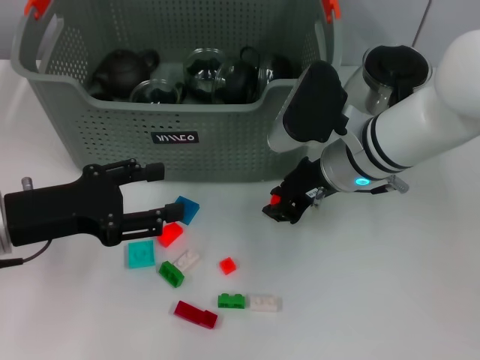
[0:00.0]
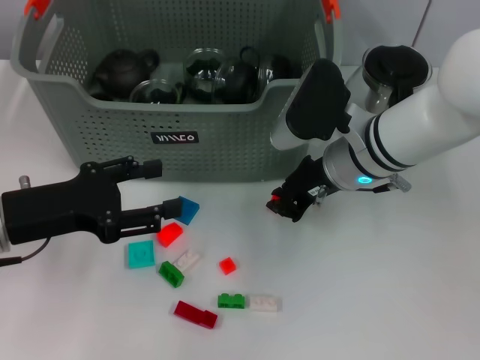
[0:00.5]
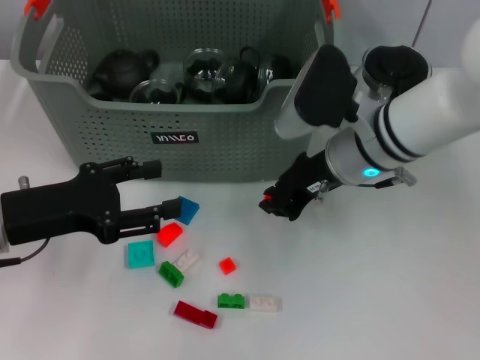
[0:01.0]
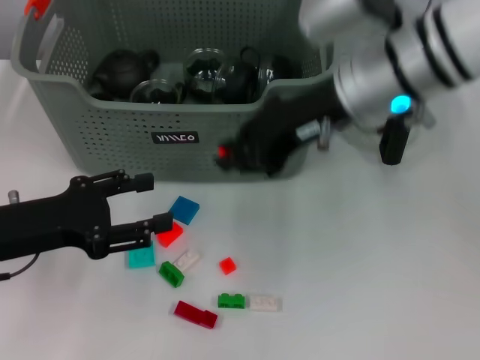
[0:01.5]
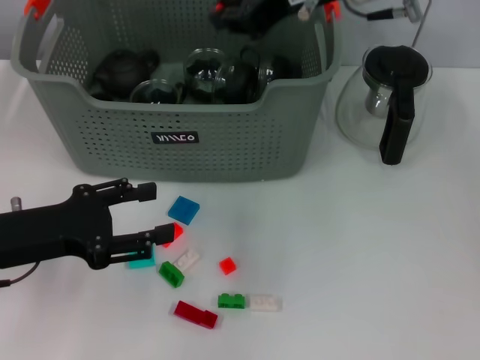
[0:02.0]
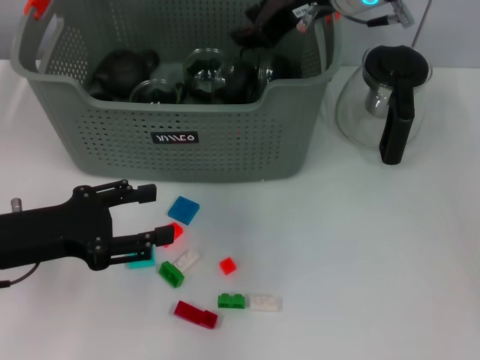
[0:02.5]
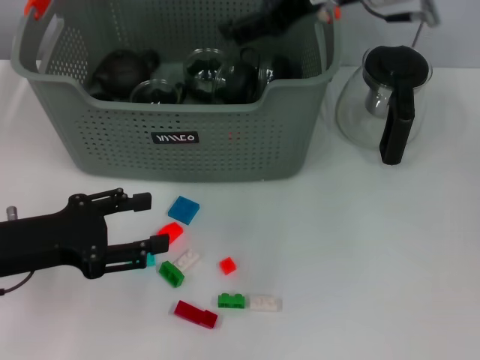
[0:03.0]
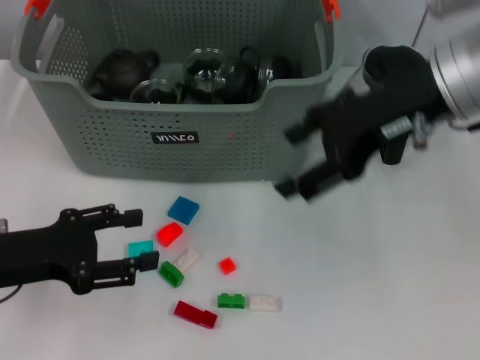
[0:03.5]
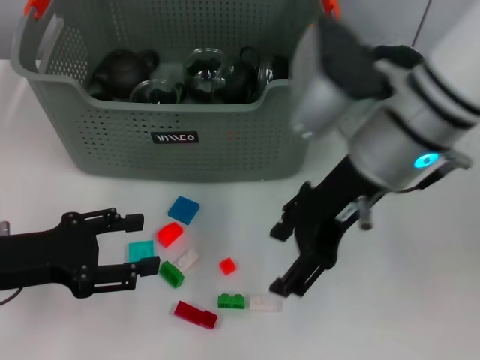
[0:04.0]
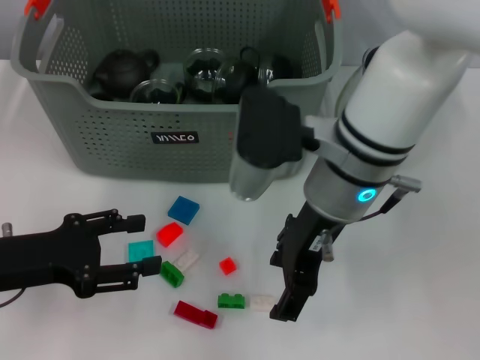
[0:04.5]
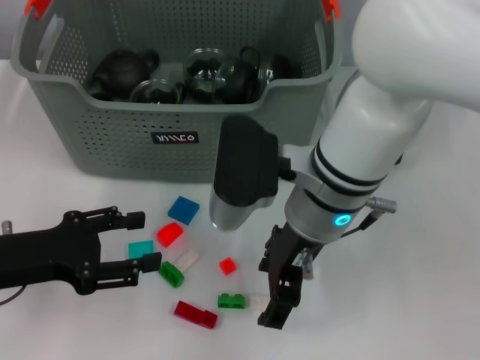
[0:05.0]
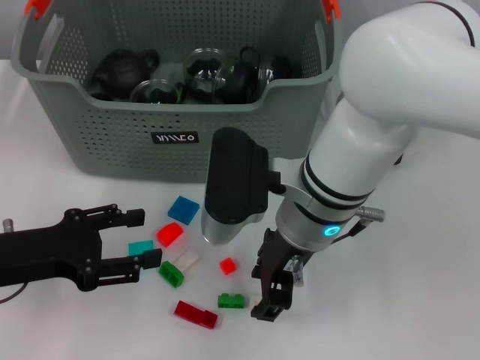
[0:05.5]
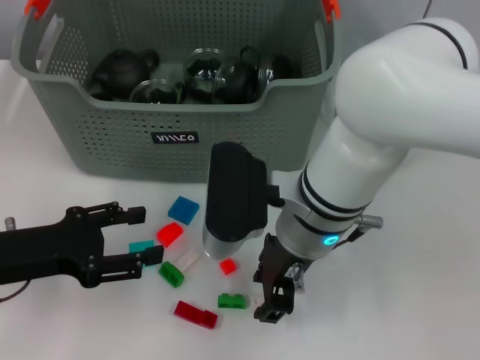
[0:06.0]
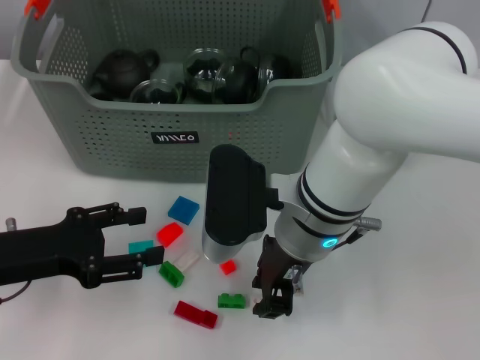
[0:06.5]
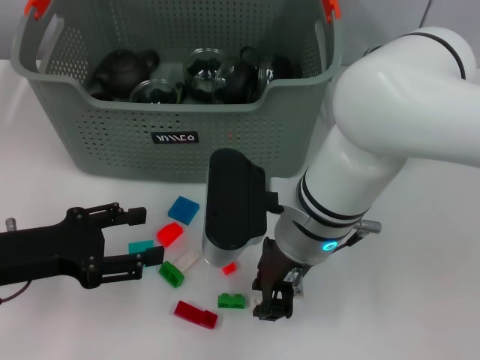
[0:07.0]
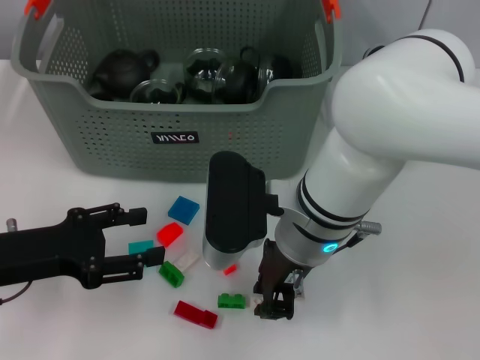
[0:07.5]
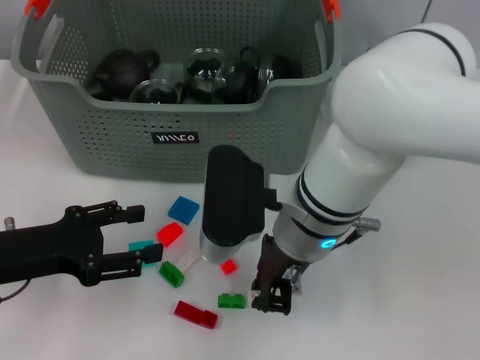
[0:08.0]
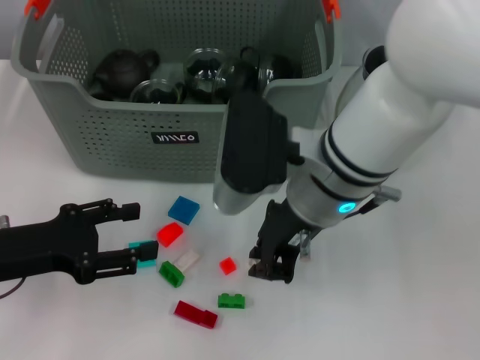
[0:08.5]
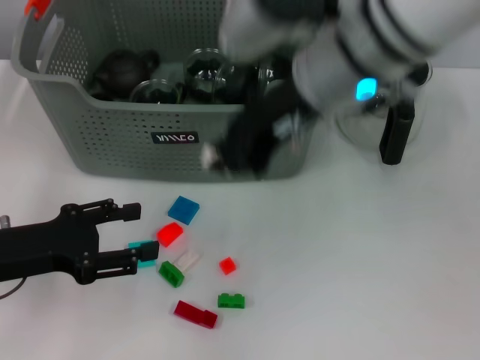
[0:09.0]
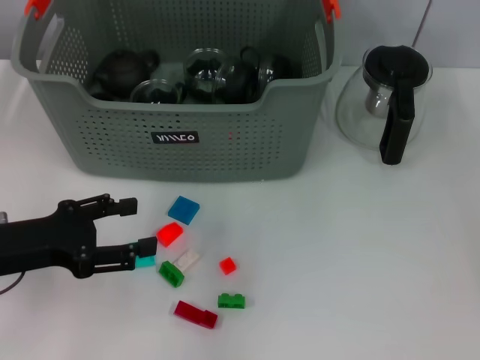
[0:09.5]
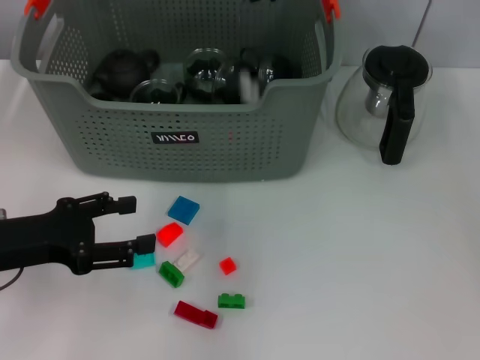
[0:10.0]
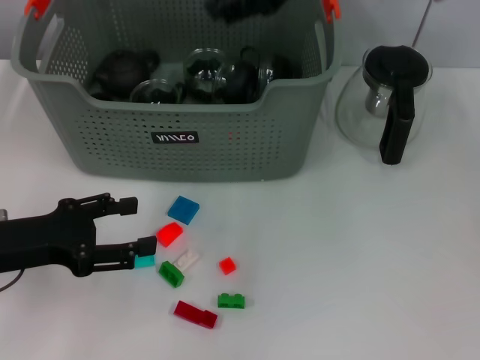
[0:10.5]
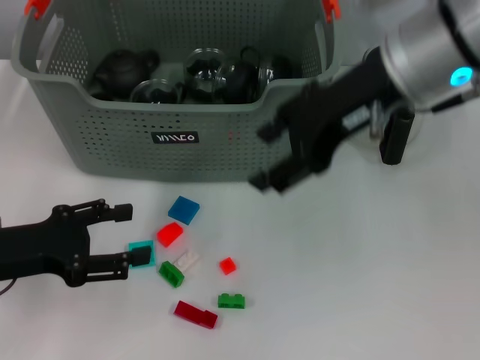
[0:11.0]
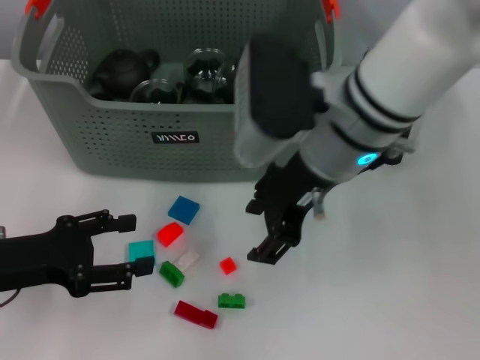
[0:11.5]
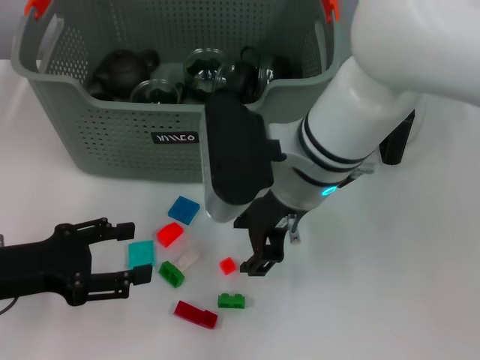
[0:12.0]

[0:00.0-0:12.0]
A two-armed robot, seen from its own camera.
Task of the whole recording: pick up the teacup on the table and place it into the storage bin, pick up the block on the table and place it into the storage bin.
Step, 0:01.0 to 0:02.0: Place the orange block in the storage box with right gripper.
Step, 0:03.0 to 0:07.5: Grasp the white block with right gripper.
Step, 0:08.0 to 0:10.0: Place the white block in the storage box with right gripper.
0:00.0 to 0:02.0: The right gripper heads upward, covering approximately 15 cm.
0:02.0 to 0:04.0: The right gripper shifts roughly 10 cm backward and downward, and opens up.
0:04.0 to 0:06.0: The right gripper heads downward and to the left, covering approximately 10 cm, and closes up.
0:06.0 to 0:08.0: The right gripper closes up.
0:08.0 to 0:10.0: The right gripper shifts some 20 cm upward, forward and to the right.
0:10.0 to 0:12.0: The right gripper travels downward, backward and to the left by approximately 20 cm, and opens.

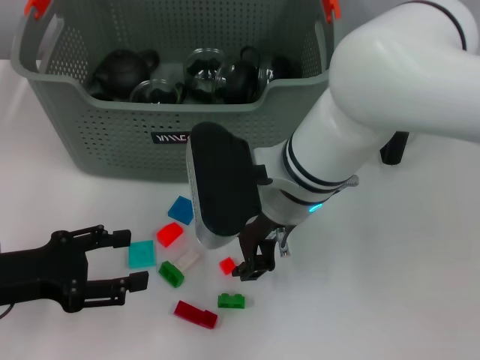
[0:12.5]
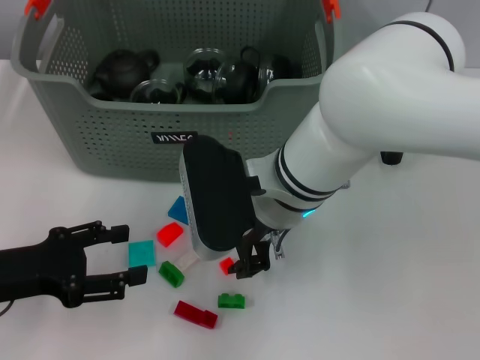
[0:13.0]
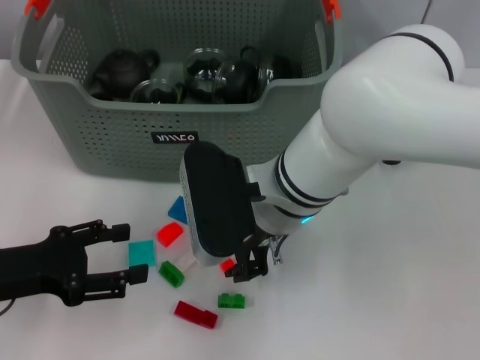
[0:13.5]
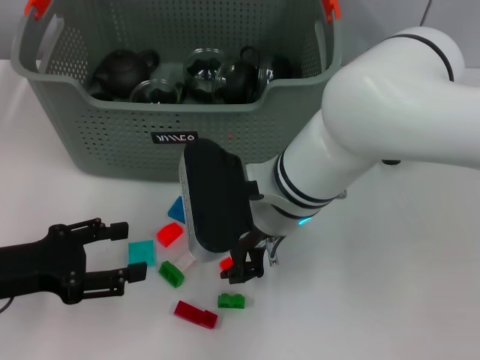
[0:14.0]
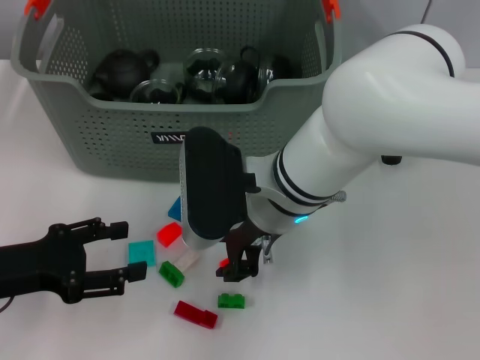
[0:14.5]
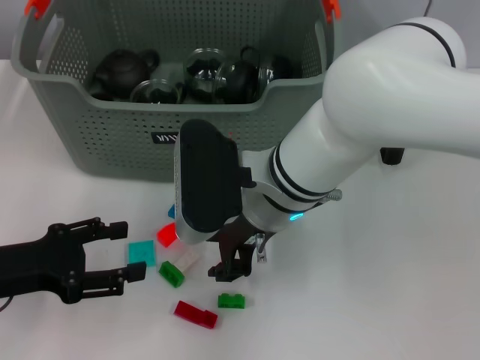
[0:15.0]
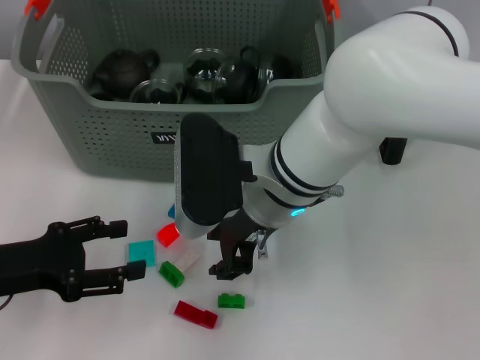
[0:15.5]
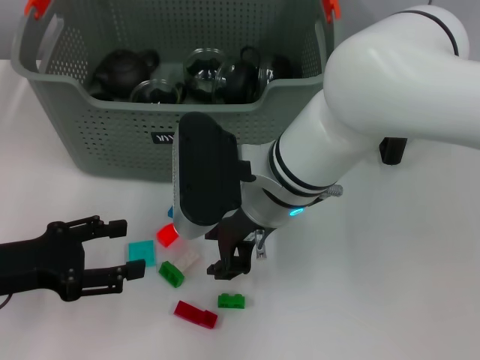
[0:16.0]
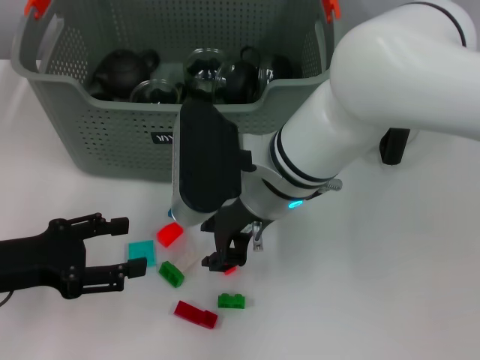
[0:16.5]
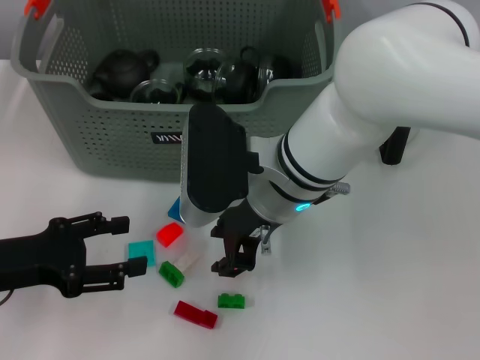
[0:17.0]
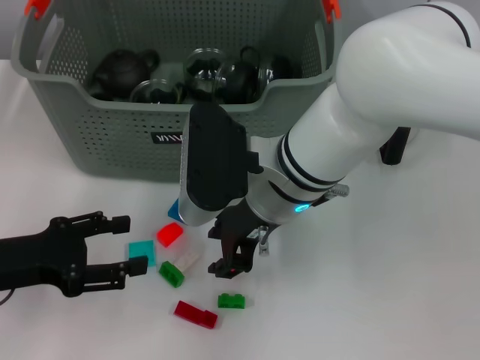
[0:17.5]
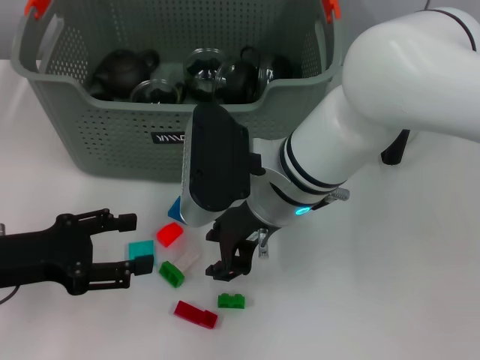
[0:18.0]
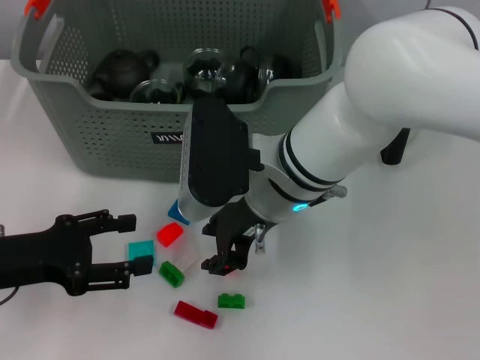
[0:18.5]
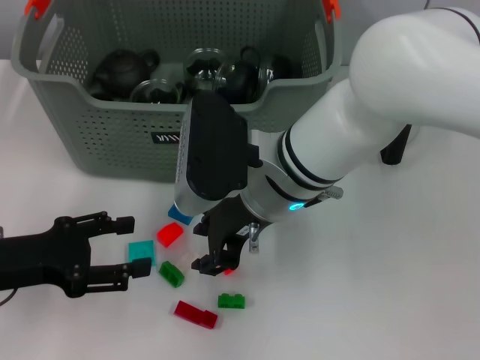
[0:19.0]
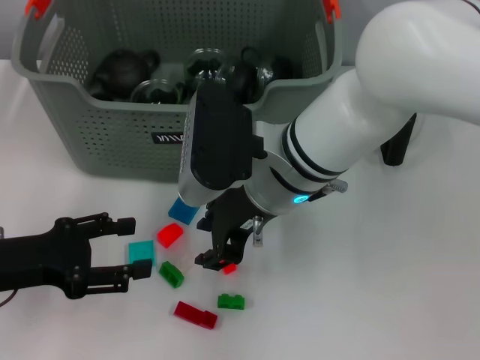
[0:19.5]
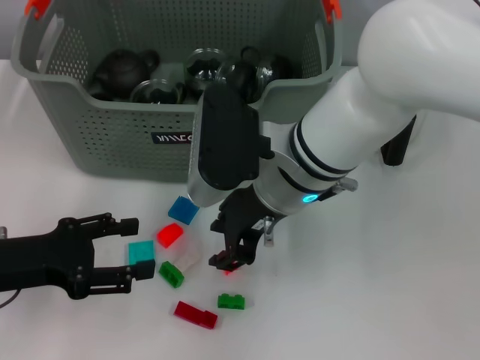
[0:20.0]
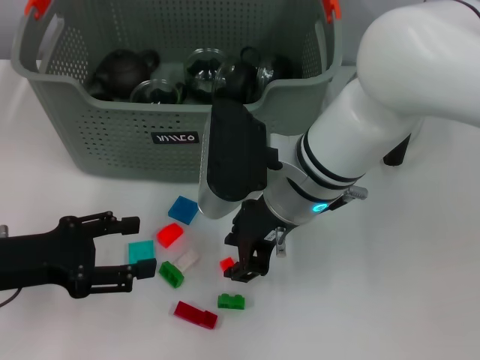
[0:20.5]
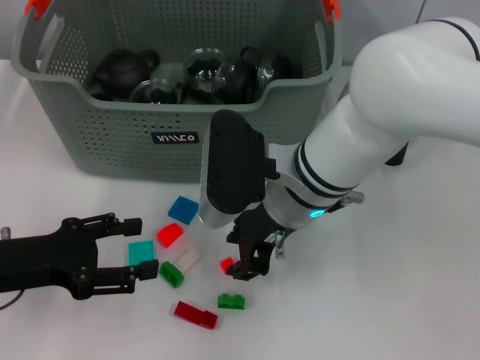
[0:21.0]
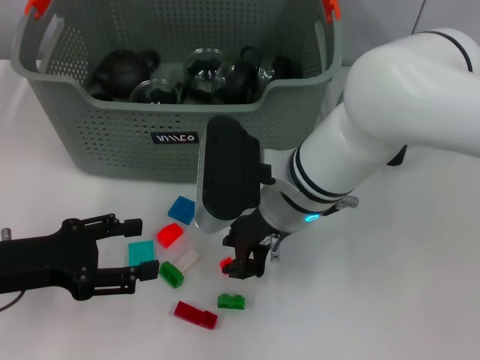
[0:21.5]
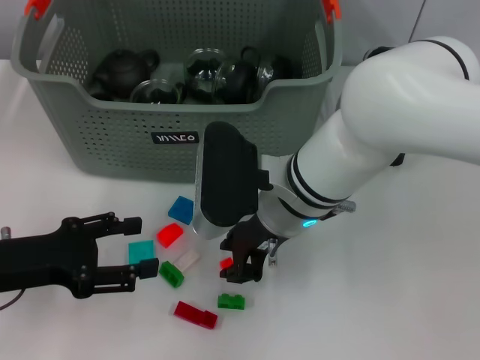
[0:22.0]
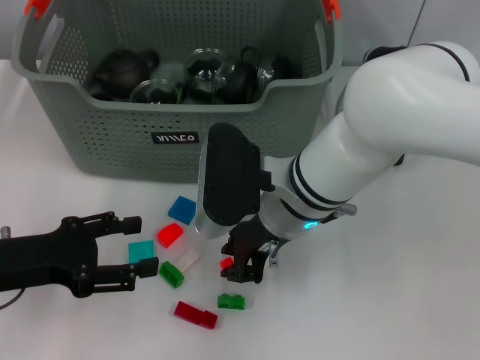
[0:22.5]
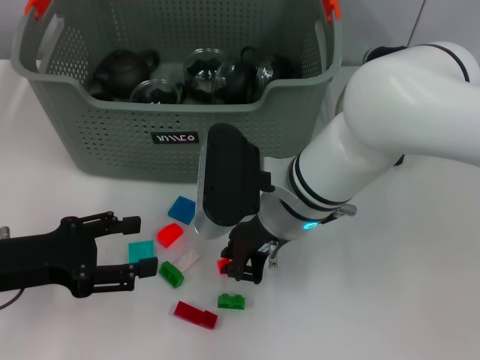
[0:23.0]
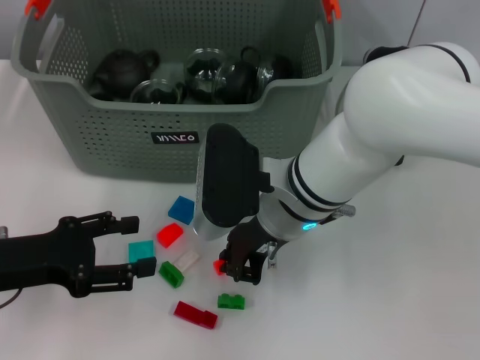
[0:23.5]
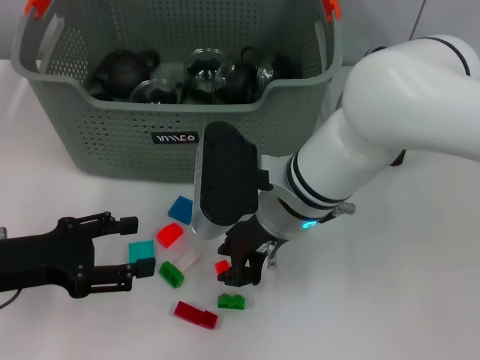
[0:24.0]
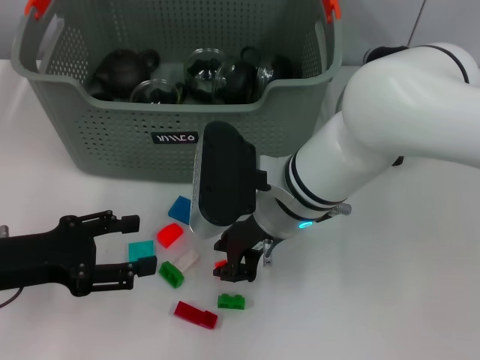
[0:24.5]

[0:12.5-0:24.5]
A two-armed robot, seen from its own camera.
Task of the whole recording: pick up the teacup on the table and place it into the storage bin, pick up the block on the table and place it into the storage bin.
0:12.5 to 0:16.5: The grippers move only a little.
0:16.5 to 0:18.5: Neither gripper changes place.
0:18.5 to 0:22.5: The grippers move only a little.
0:22.5 to 0:24.5: Both grippers stay put.

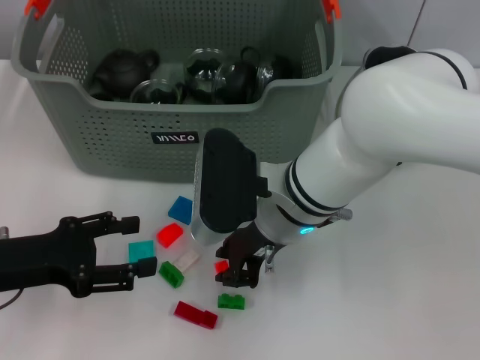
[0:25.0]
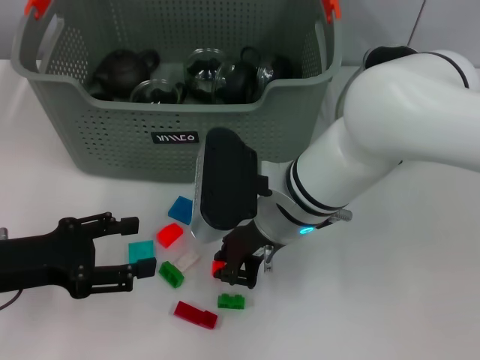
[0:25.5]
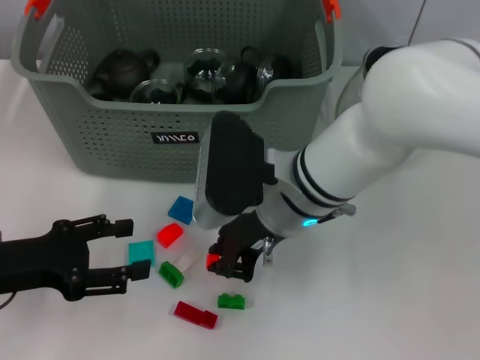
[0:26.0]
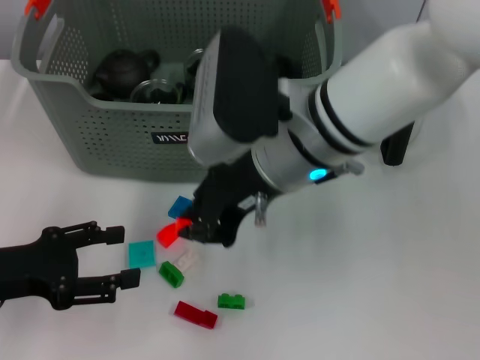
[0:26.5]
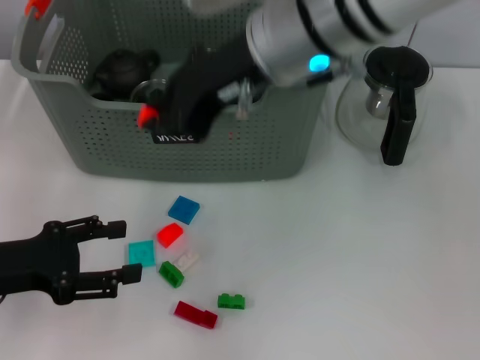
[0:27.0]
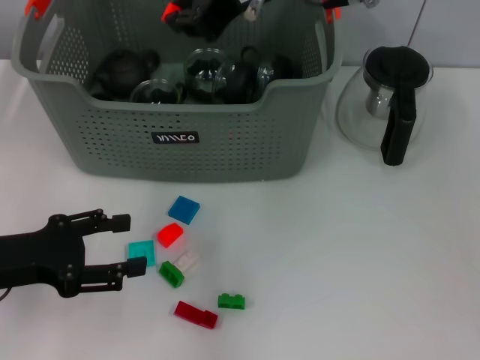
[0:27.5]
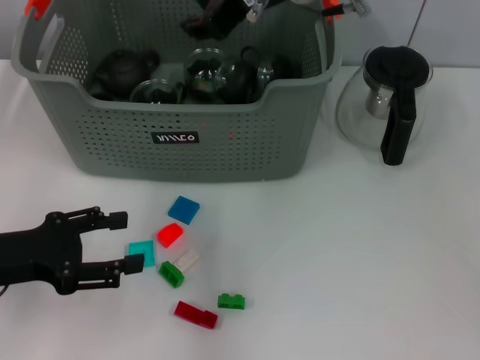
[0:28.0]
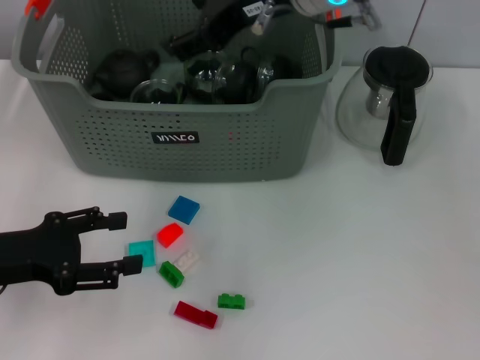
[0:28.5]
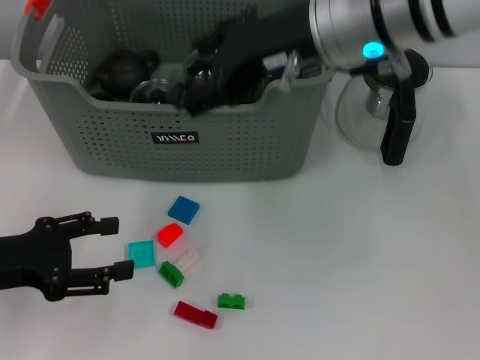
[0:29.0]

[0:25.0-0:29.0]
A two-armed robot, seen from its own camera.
Task of the whole recording: pick up the teacup on the table and place it into the storage bin, pick up the block on the table and place it into the storage bin.
Step, 0:26.0 to 0:27.5: Place the orange block in the storage box with right gripper.
0:25.0 to 0:27.0: The right gripper moves upward, roughly 15 cm.
0:27.0 to 0:29.0: The right gripper opens up.
